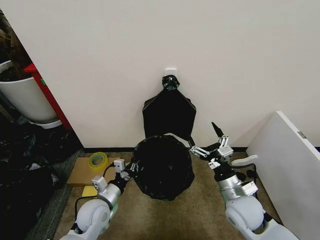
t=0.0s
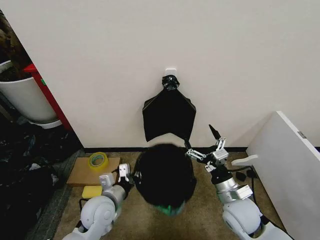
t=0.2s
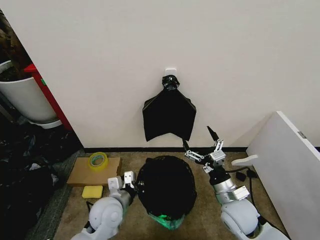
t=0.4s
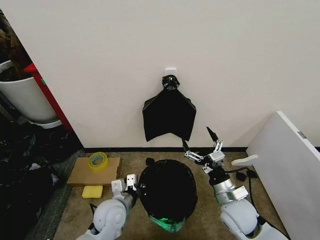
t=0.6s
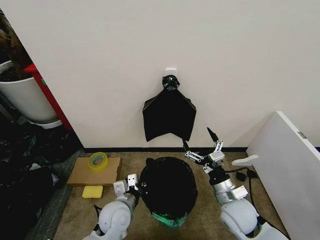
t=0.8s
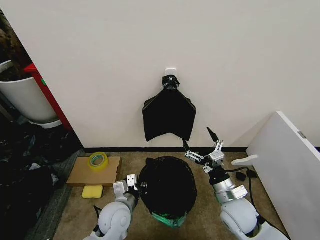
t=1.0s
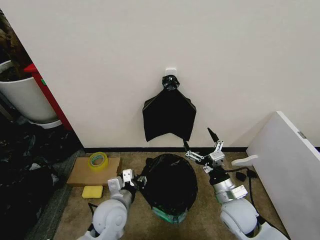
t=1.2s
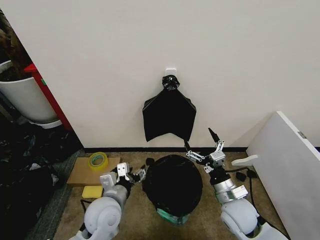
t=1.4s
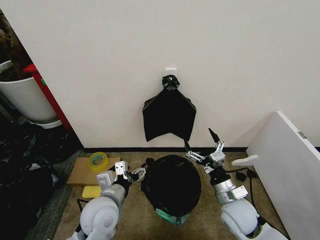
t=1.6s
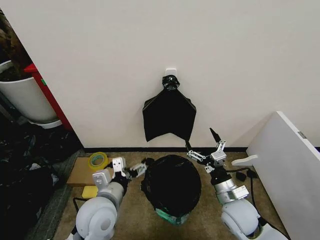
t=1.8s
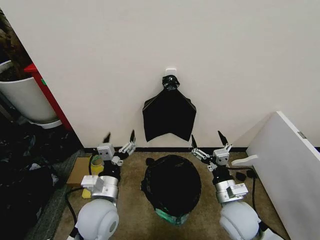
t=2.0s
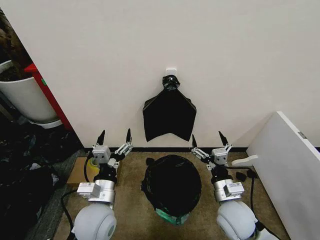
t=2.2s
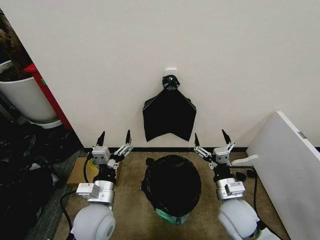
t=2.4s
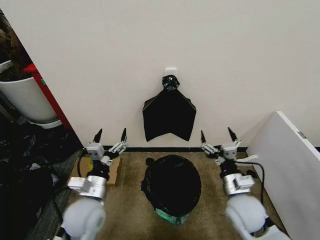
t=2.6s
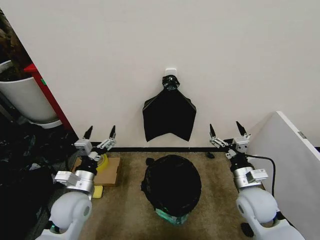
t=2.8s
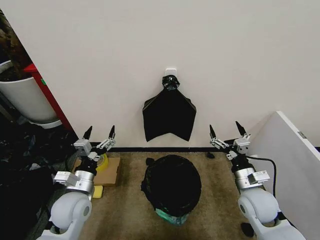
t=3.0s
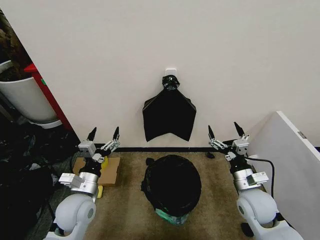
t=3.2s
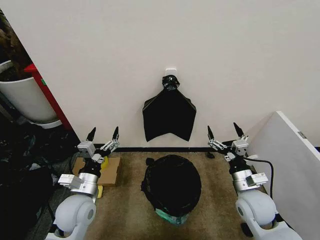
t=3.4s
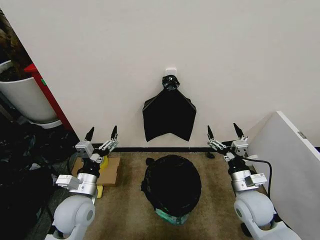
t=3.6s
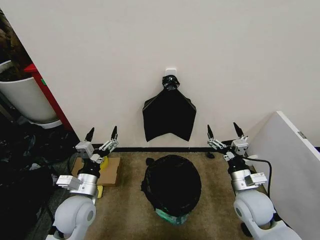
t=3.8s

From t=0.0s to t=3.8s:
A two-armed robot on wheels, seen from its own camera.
Task of the whole recording: Place the garbage bag over the trash bin.
From t=0.0s to t=1.2s: The left gripper shifts some 5 cm to the right, and opens.
From t=1.2s to t=2.6s: The left gripper goes some 10 cm to the left and upward, and opens its fingers.
From t=2.6s to t=3.8s: There are only small adjustments of the grippers.

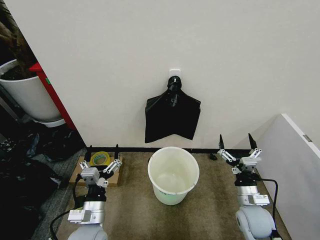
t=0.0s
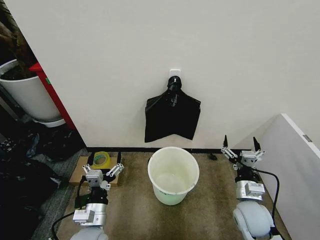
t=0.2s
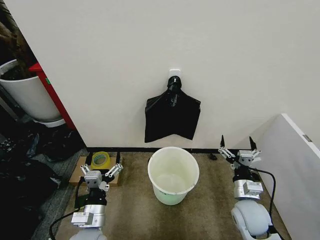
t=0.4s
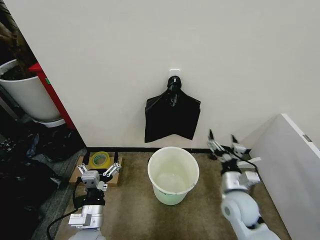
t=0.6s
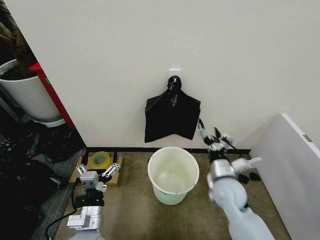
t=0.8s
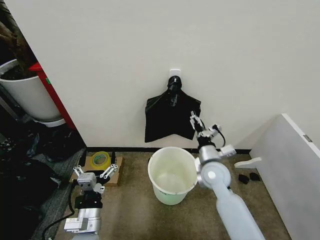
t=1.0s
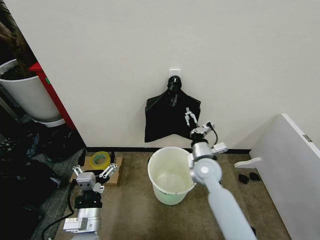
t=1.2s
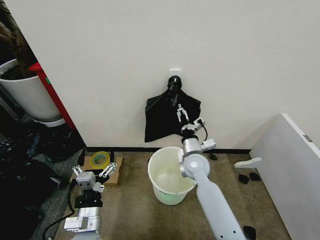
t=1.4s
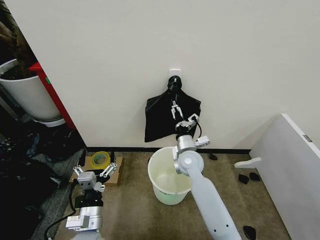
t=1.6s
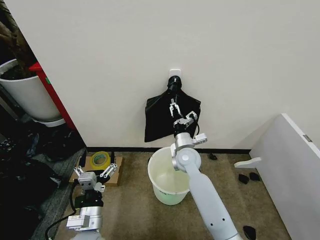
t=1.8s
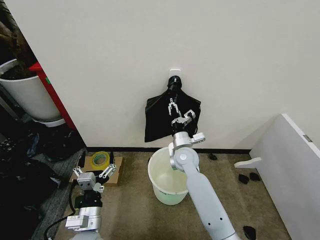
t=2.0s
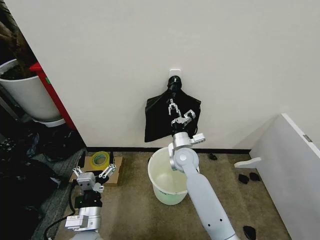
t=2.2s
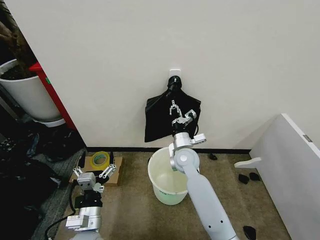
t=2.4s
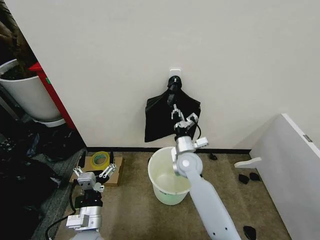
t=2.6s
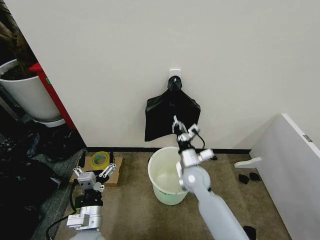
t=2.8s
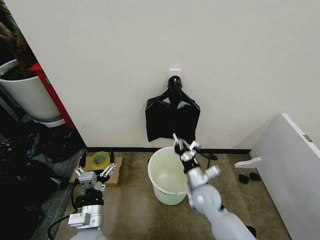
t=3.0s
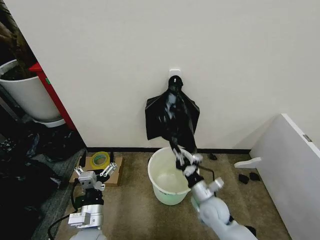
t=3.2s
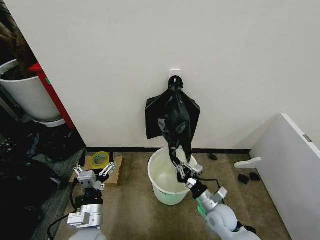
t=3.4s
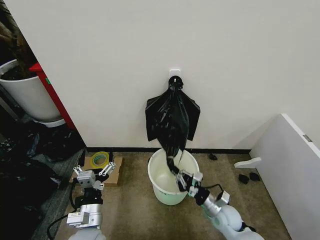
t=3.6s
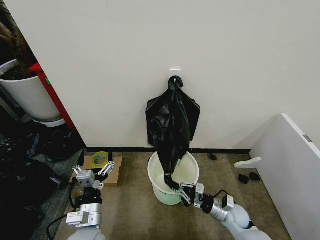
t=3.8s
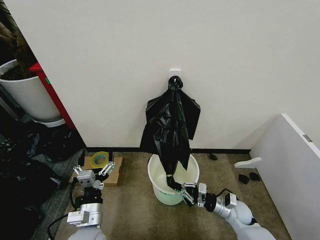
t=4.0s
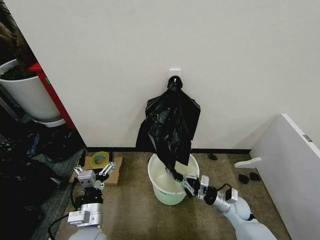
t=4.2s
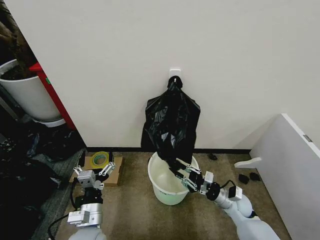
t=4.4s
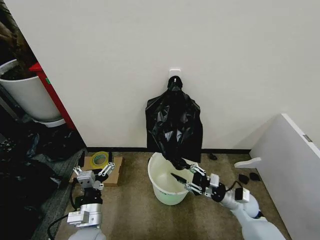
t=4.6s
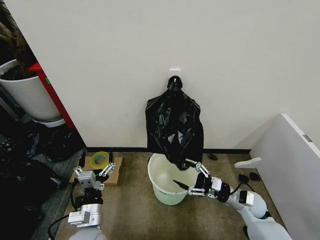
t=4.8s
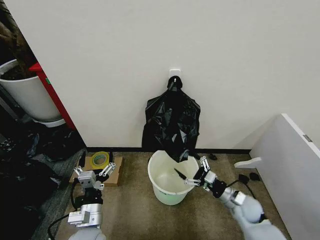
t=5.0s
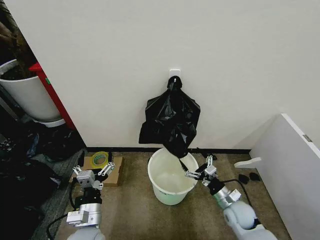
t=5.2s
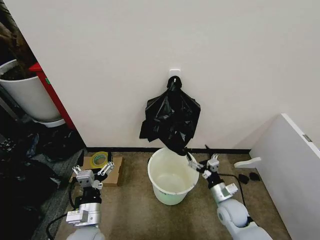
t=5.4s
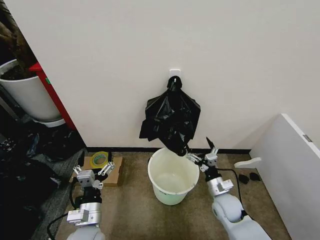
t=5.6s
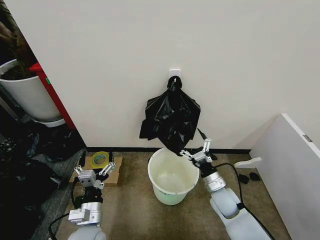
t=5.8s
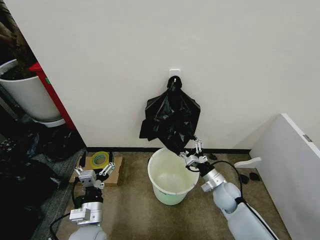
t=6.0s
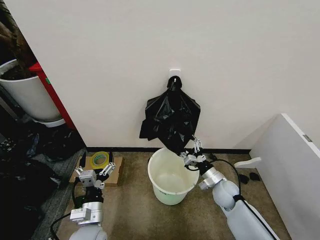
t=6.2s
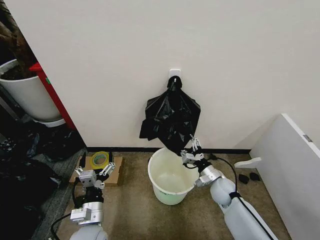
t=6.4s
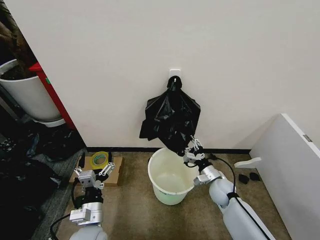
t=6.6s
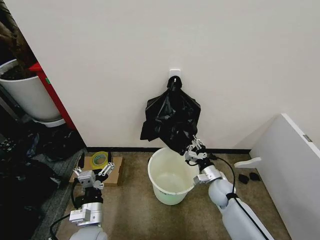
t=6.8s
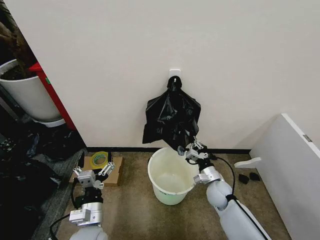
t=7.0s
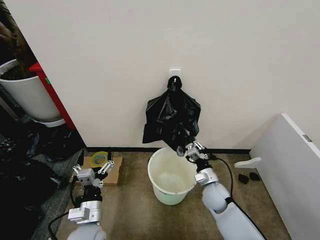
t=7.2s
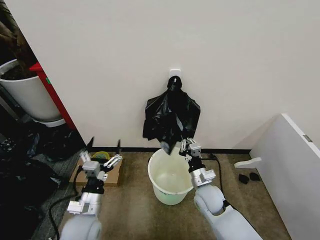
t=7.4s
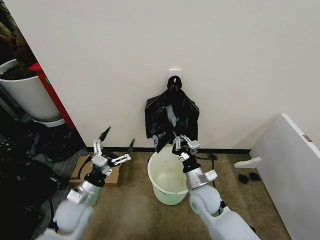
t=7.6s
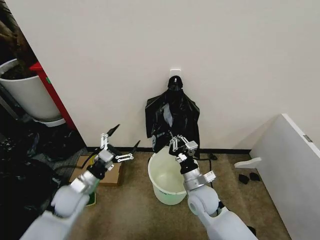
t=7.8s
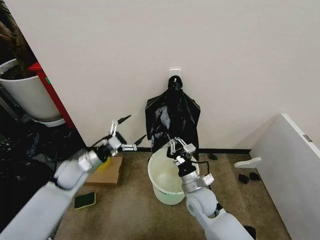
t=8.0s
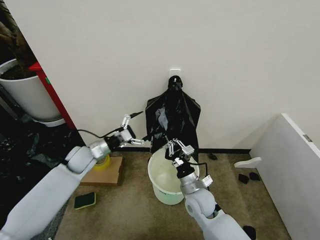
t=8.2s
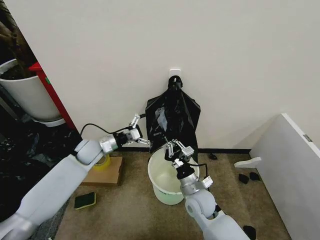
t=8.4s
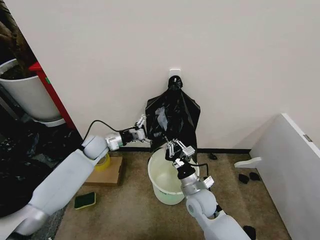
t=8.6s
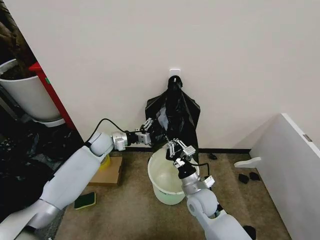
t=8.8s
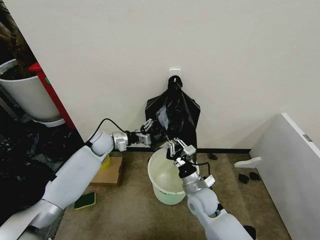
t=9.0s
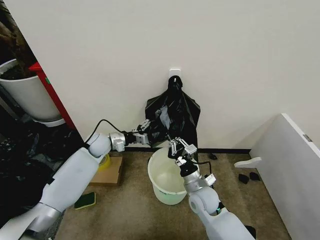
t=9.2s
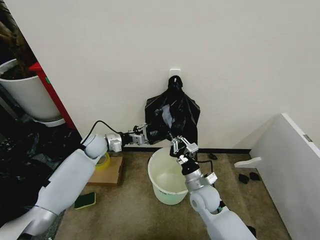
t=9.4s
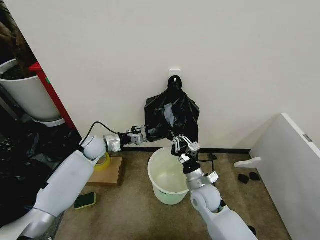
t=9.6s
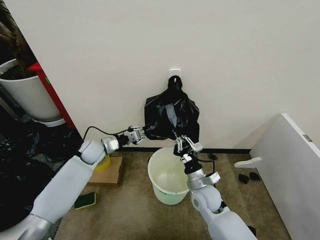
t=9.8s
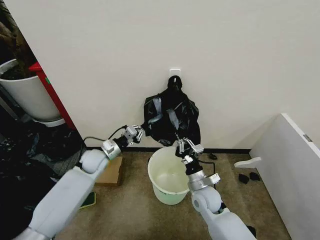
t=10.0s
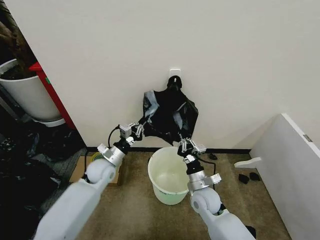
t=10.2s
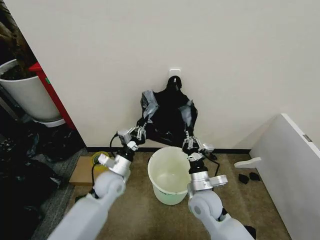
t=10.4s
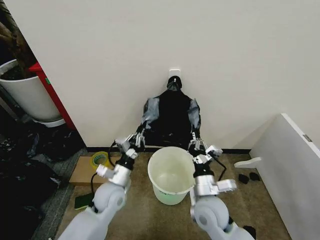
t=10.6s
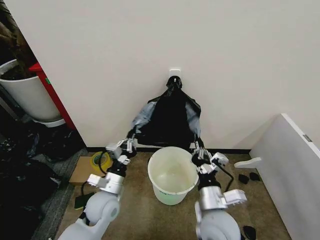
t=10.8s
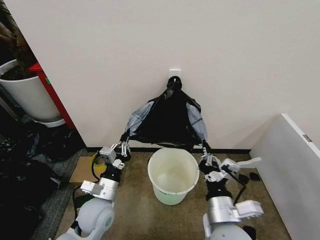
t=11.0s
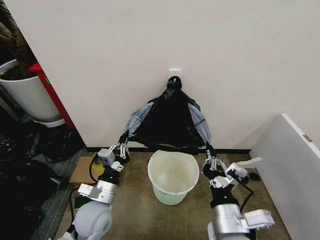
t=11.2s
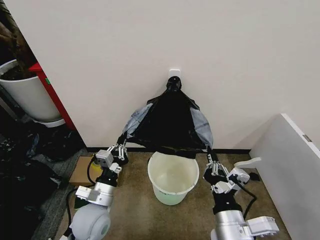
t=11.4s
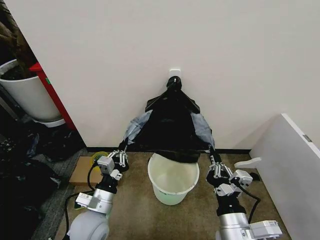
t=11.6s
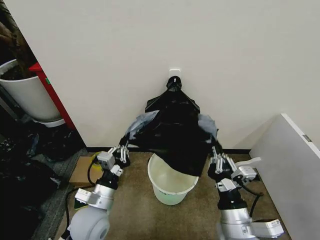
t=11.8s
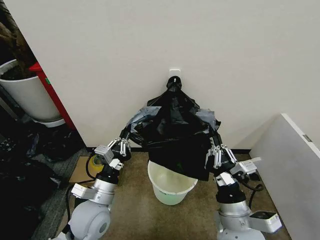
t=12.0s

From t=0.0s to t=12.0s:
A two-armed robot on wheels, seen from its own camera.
Task of the whole recording: Place the garbage bag over the trash bin.
From t=1.6s to t=3.0s: The right gripper goes about 10 cm backward and downward, and closes its fingers.
From t=3.0s to t=4.4s: The right gripper heads to the right and downward, covering some 15 cm.
From t=4.4s to t=6.0s: The right gripper changes place by some 5 cm, and opens its fingers.
From t=6.0s to t=7.6s: The left gripper moves forward and to the left, roughly 10 cm. The right gripper travels to the left and upward by some 10 cm, and closes.
From t=7.6s to t=9.0s: The left gripper is displaced forward by approximately 25 cm.
From t=9.0s to t=10.4s: The left gripper heads backward and to the right, covering some 15 cm, and closes.
From t=10.4s to t=12.0s: The right gripper heads backward and upward, covering roughly 15 cm. Meanwhile the left gripper heads backward, covering about 10 cm.

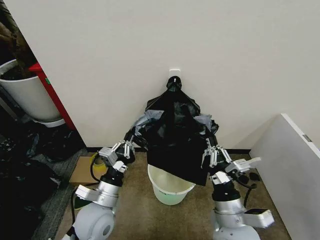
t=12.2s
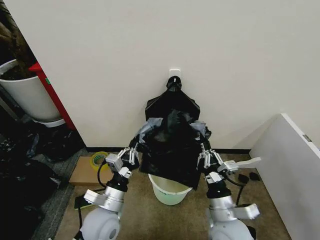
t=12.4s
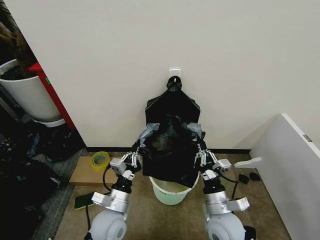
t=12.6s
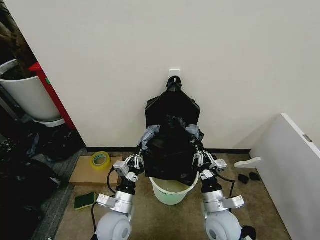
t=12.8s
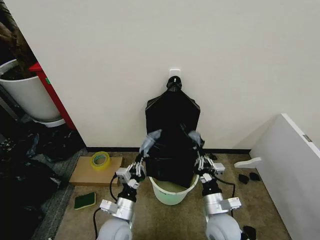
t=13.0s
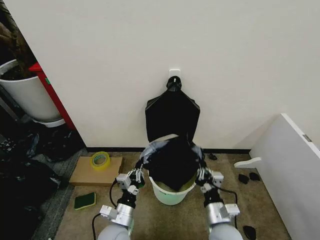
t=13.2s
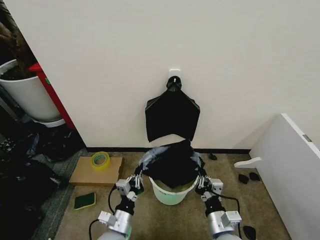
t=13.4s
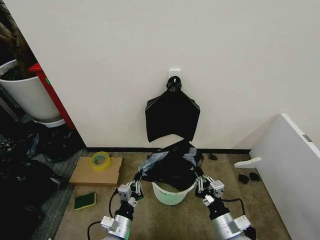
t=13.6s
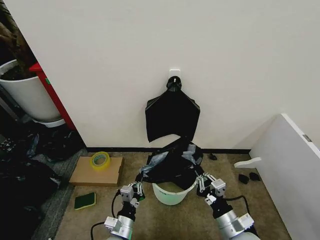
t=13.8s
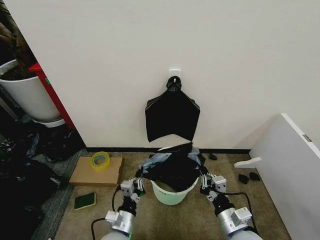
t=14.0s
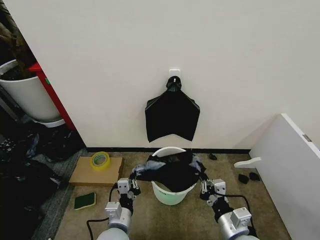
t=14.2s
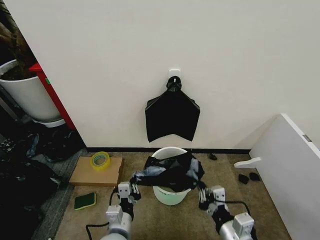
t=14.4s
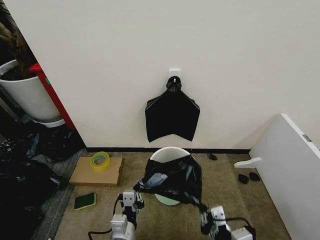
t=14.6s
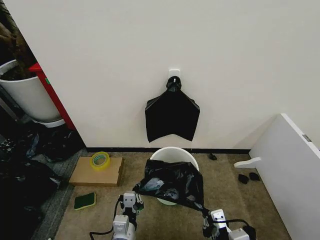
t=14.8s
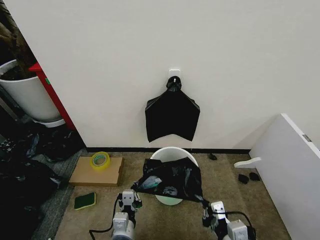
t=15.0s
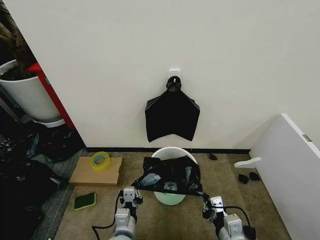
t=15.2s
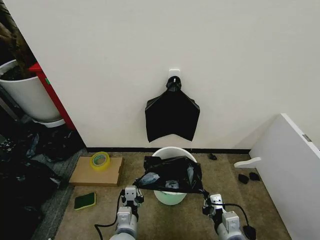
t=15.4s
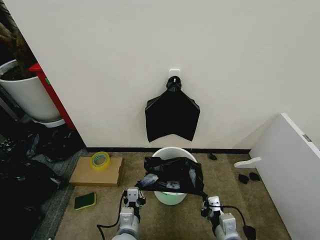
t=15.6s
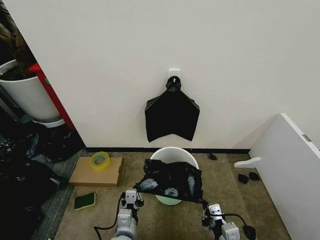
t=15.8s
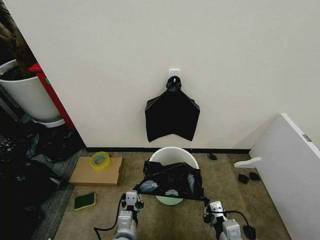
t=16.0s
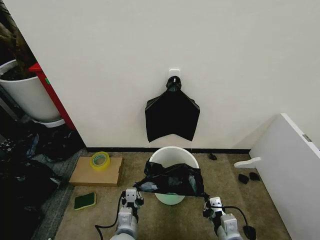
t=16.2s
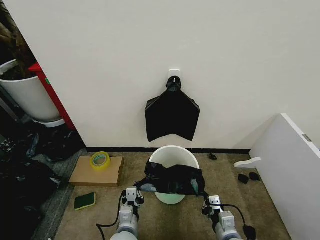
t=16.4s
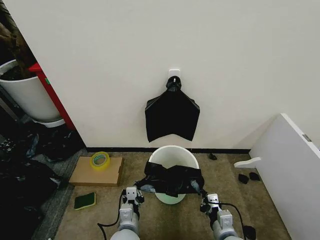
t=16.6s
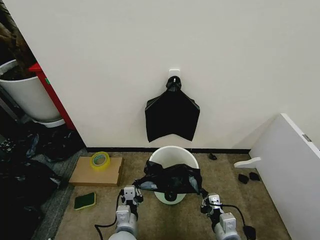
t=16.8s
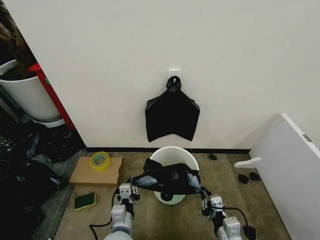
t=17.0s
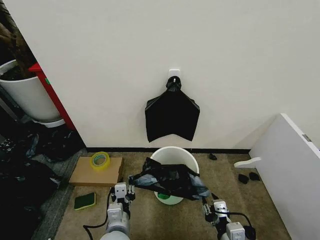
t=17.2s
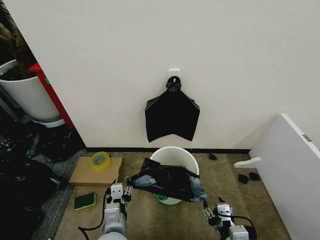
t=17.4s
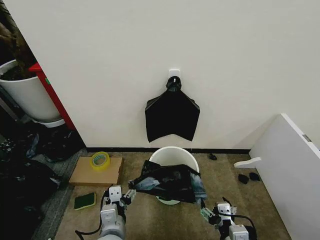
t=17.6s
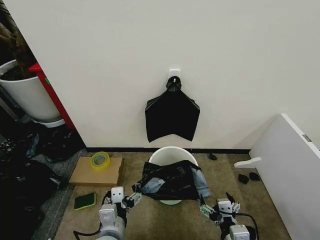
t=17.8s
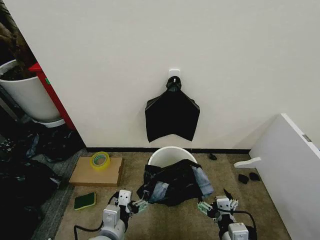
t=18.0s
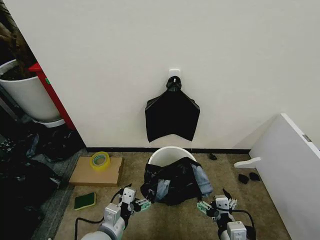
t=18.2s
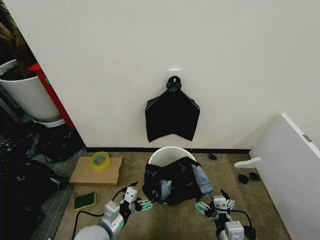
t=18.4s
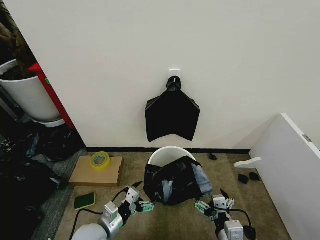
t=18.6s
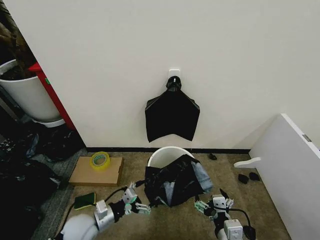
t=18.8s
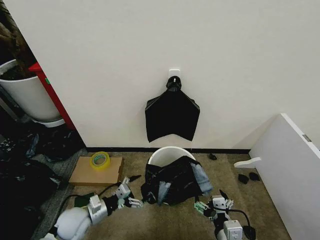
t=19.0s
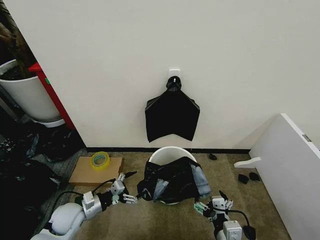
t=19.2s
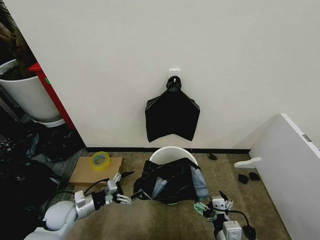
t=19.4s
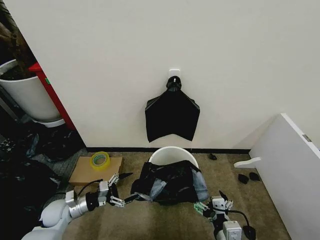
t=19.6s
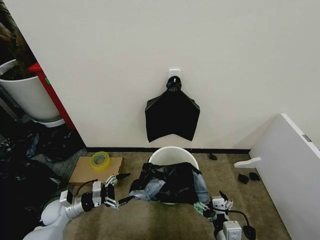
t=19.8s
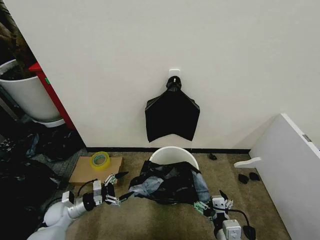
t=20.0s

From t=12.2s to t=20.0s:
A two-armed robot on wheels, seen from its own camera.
Task of the whole recording: Place the garbage bag over the trash bin.
From t=12.2s to t=13.8s: The two grippers go approximately 10 cm downward.
From t=13.8s to t=15.4s: The right gripper moves some 10 cm upward and comes back.
From t=15.4s to t=16.8s: The grippers move only a little.
From t=16.8s to t=18.4s: The right gripper shifts some 5 cm upward, and opens; the left gripper is displaced to the left by approximately 10 cm, and opens up.
From t=18.4s to t=20.0s: The left gripper moves to the left, forward and downward, roughly 25 cm.
